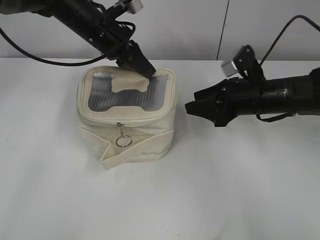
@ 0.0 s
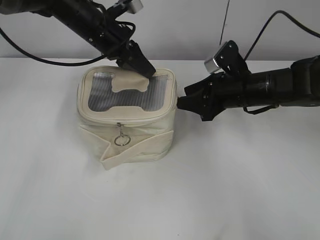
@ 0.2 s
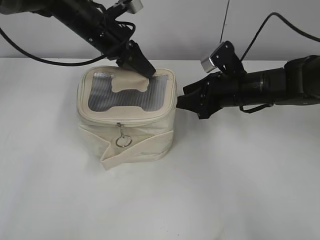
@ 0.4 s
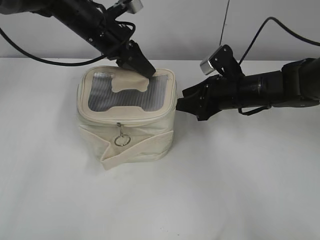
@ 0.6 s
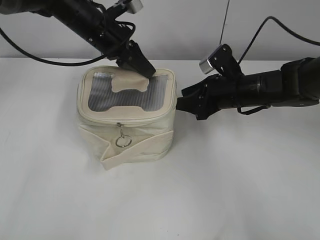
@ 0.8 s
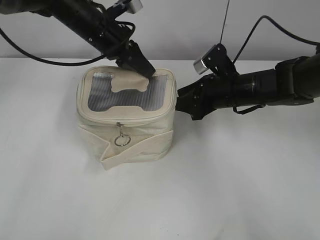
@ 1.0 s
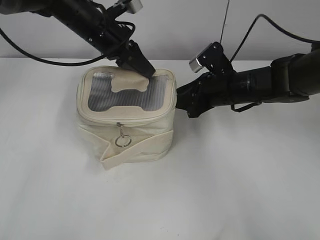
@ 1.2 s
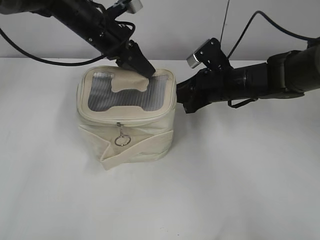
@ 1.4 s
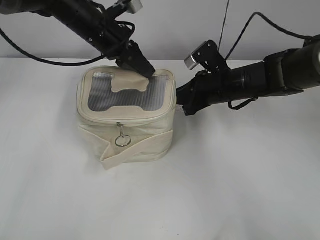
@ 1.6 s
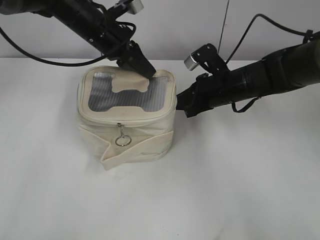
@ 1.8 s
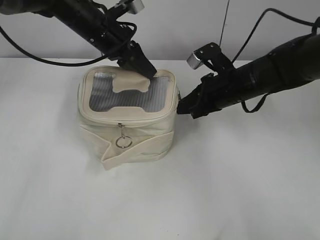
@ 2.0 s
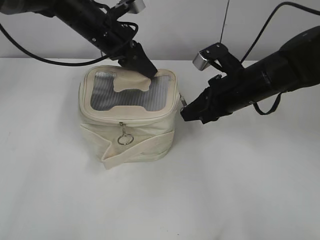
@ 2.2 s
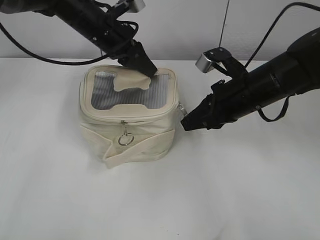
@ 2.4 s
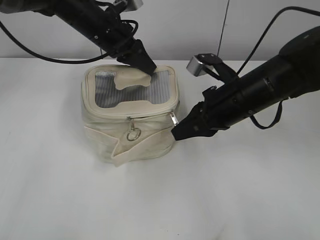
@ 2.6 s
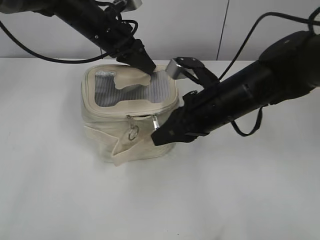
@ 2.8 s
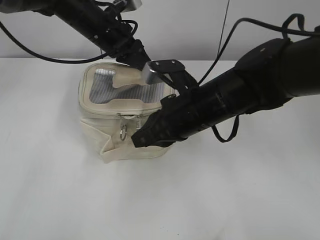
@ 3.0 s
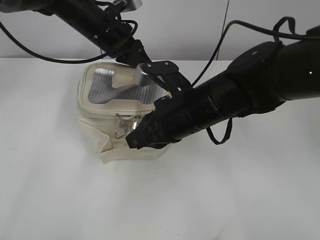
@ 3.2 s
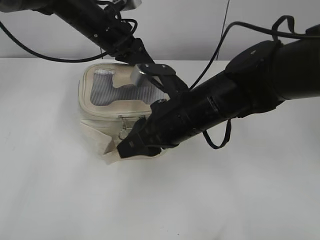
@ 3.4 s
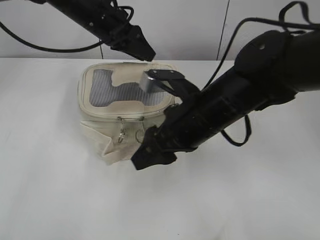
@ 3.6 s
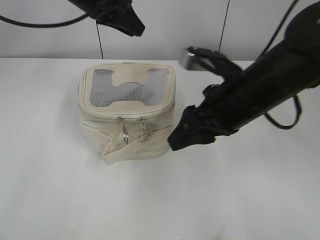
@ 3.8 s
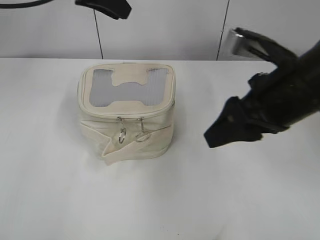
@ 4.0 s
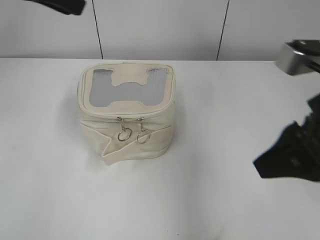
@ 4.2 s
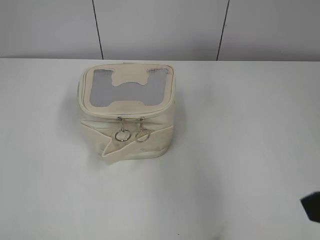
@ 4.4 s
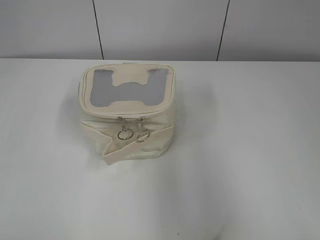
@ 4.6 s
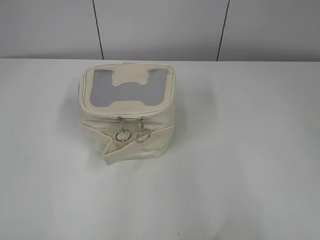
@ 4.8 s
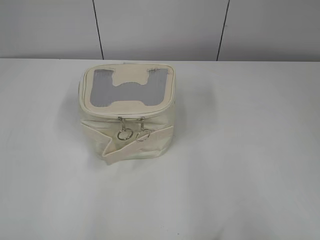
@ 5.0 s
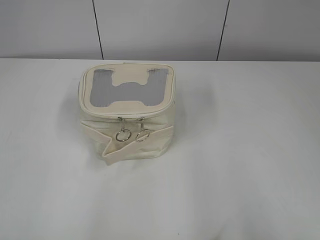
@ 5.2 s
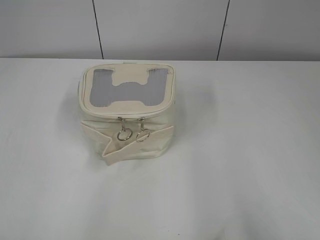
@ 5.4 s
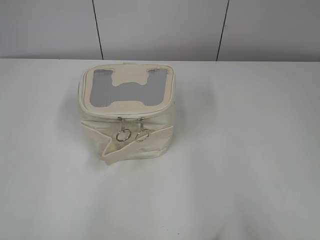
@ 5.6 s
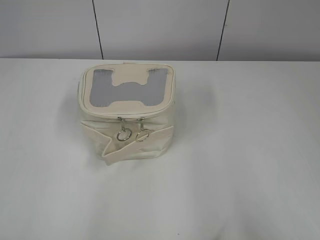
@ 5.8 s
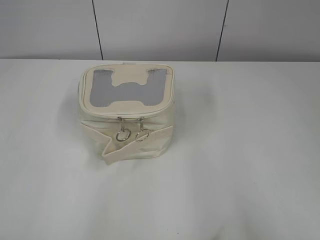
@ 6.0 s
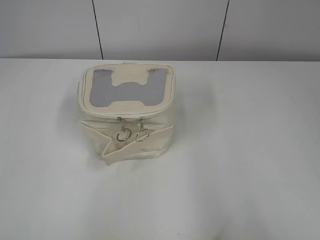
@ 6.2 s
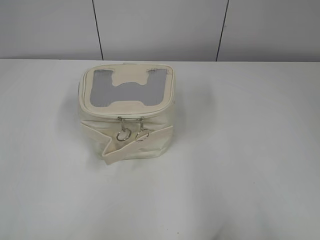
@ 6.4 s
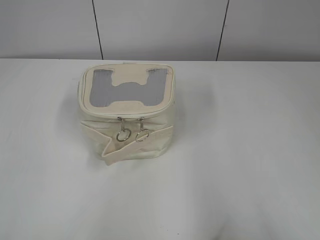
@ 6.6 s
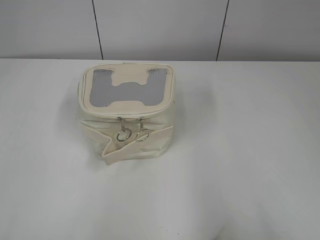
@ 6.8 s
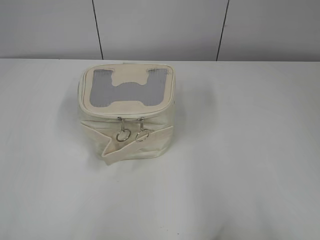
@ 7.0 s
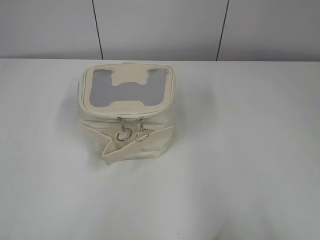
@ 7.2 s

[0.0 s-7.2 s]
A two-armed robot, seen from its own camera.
Step, 0.0 to 3.4 s: Zip up the bag with your right hand.
0.0 to 1.4 s: The right gripper shifts by some 5 cm.
1.4 to 2.8 s: The right gripper goes about 10 cm backward, and closes up.
2.8 to 4.4 s: The left gripper heads backward, upward and to the left, covering roughly 35 cm, and opens; the right gripper goes about 25 cm backward, to the right and upward, and opens.
4.4 to 5.8 s: The right gripper heads backward and to the right, covering some 15 cm; the left gripper shifts about 20 cm backward, downward and to the left.
